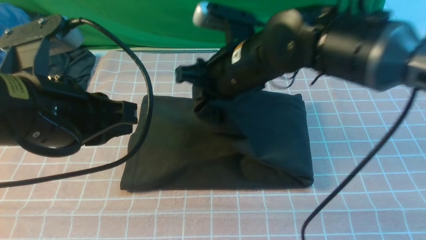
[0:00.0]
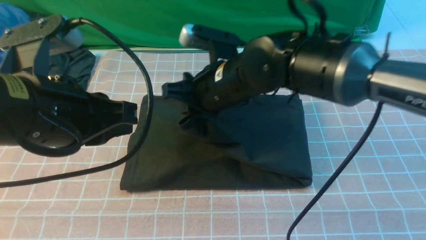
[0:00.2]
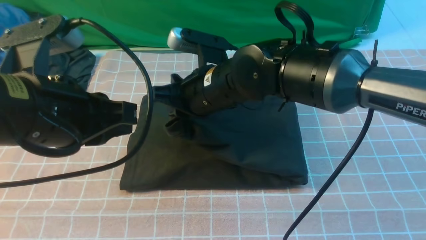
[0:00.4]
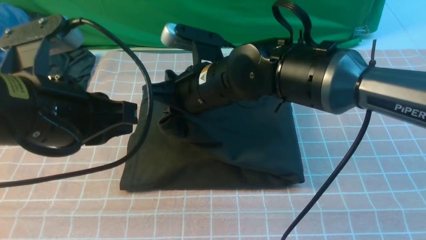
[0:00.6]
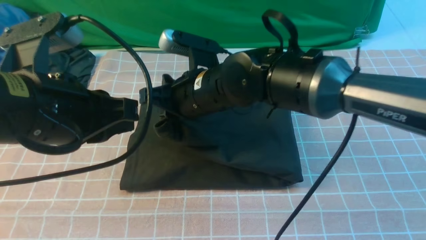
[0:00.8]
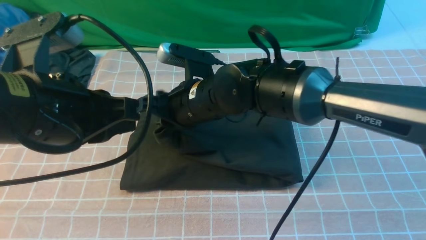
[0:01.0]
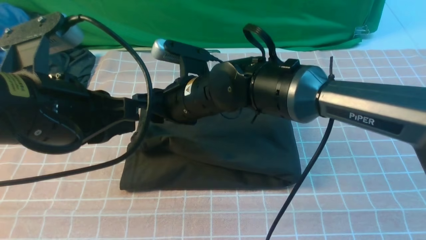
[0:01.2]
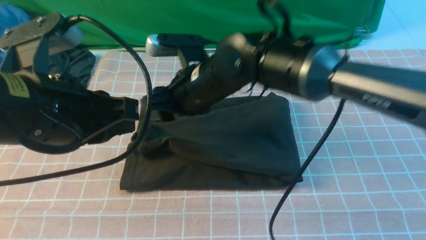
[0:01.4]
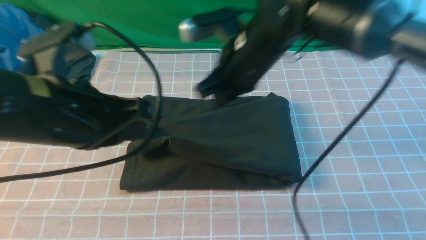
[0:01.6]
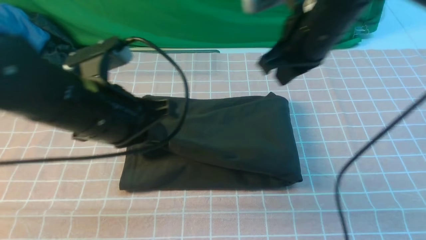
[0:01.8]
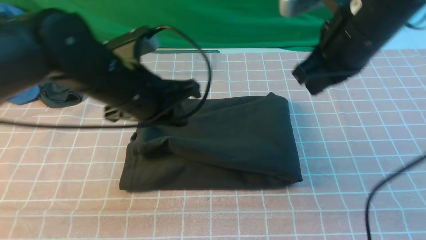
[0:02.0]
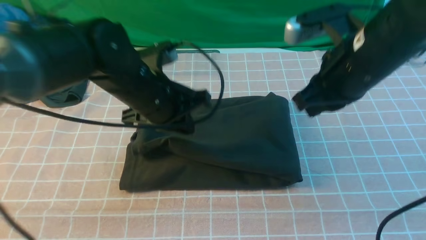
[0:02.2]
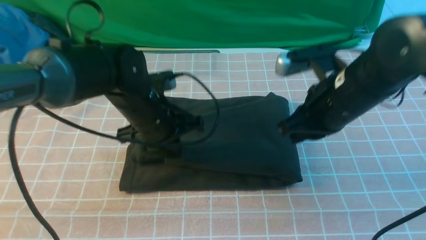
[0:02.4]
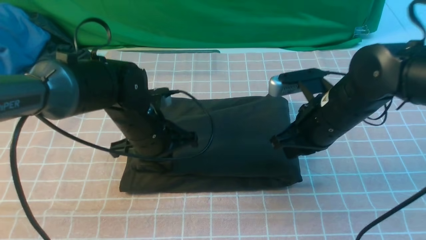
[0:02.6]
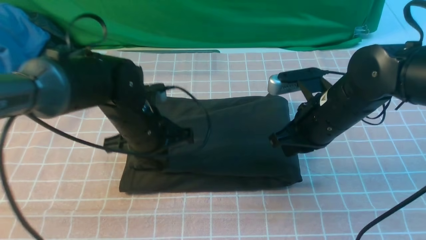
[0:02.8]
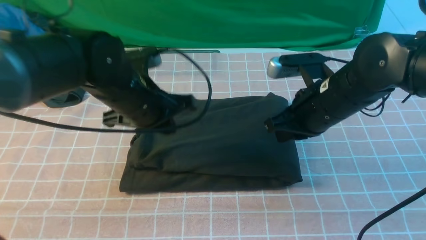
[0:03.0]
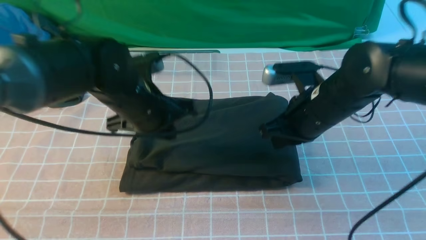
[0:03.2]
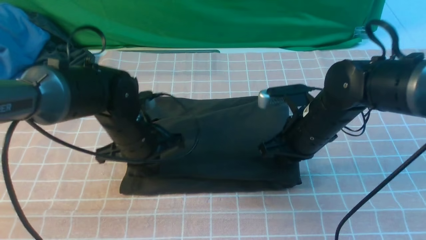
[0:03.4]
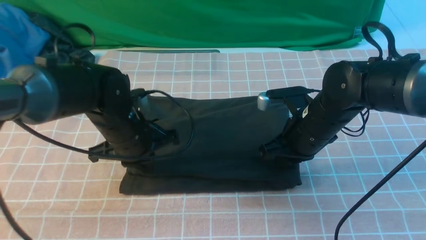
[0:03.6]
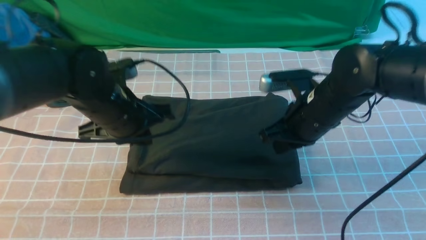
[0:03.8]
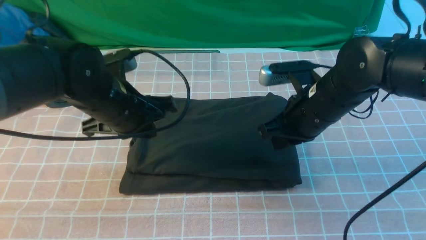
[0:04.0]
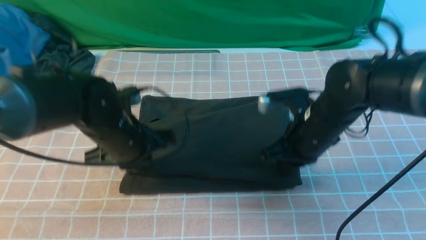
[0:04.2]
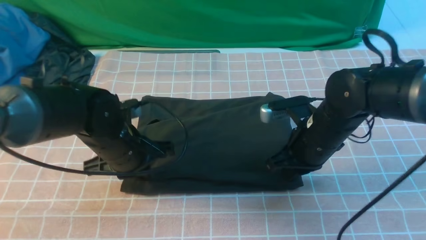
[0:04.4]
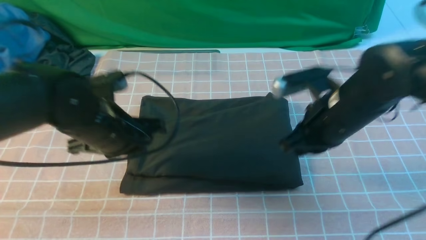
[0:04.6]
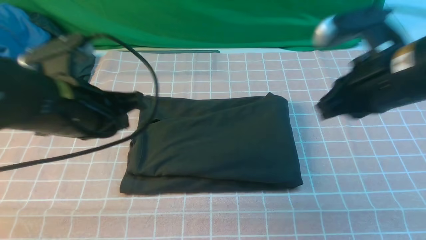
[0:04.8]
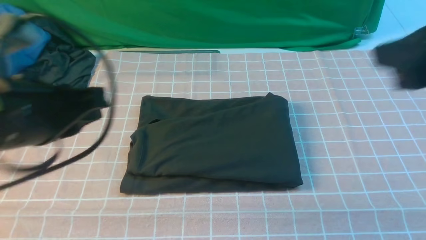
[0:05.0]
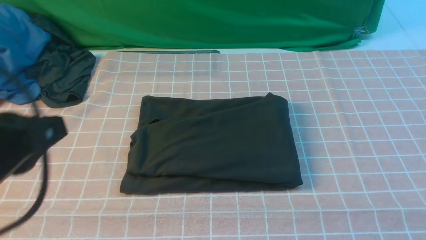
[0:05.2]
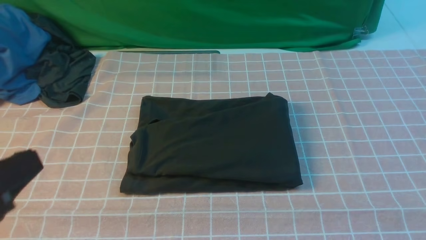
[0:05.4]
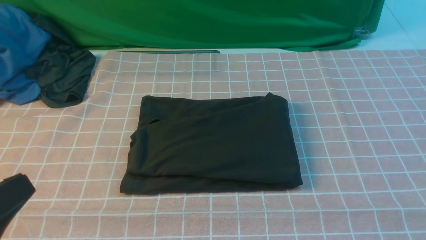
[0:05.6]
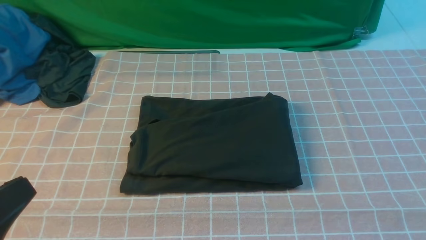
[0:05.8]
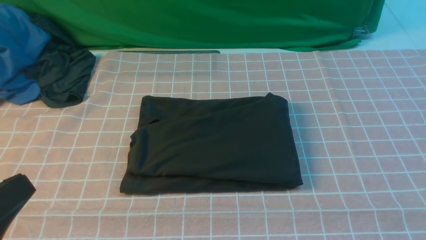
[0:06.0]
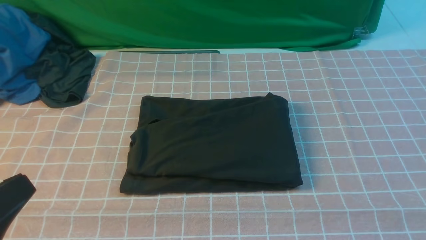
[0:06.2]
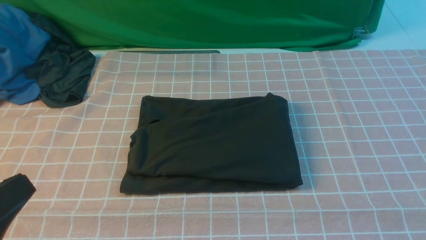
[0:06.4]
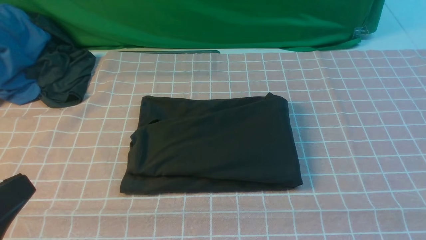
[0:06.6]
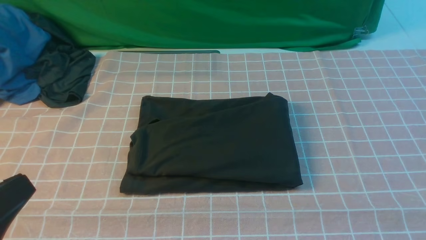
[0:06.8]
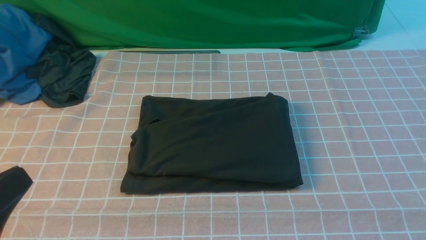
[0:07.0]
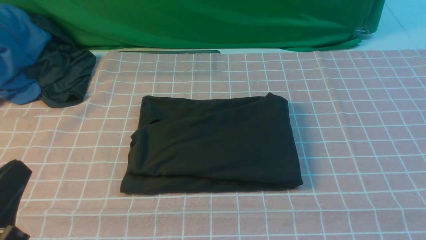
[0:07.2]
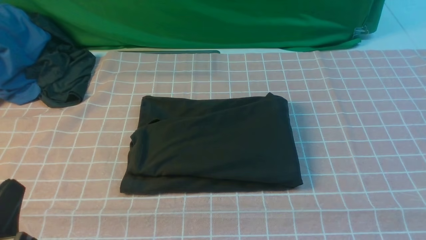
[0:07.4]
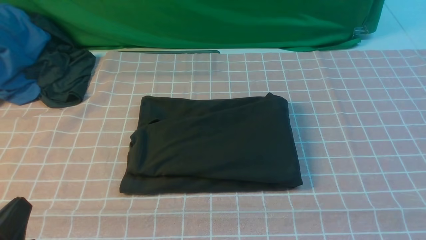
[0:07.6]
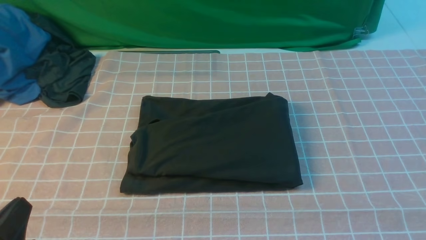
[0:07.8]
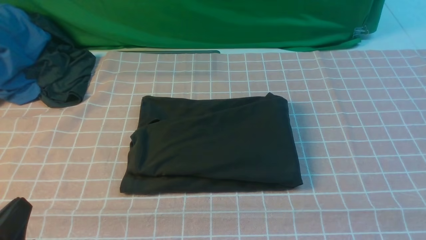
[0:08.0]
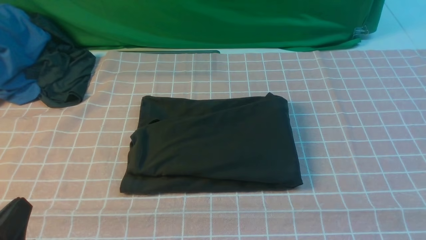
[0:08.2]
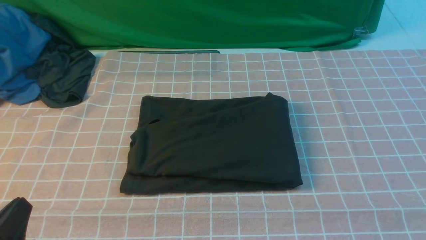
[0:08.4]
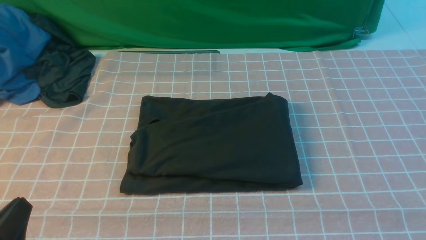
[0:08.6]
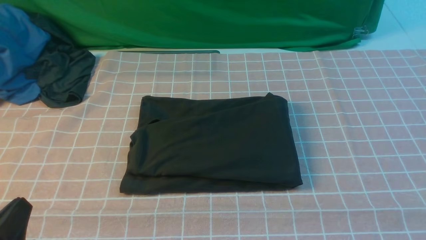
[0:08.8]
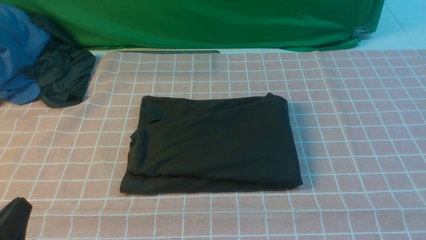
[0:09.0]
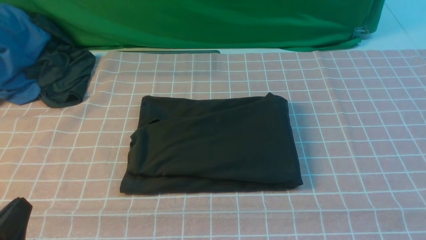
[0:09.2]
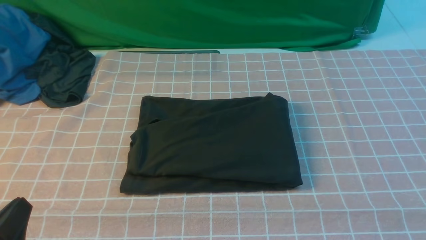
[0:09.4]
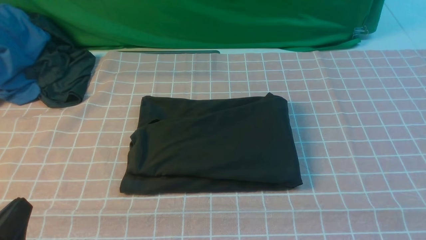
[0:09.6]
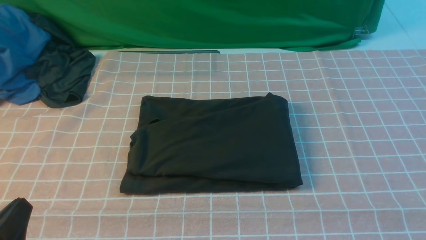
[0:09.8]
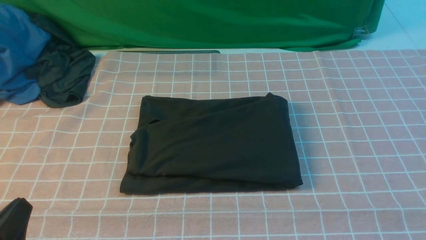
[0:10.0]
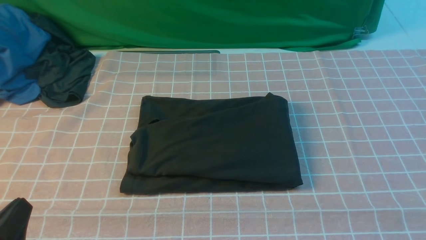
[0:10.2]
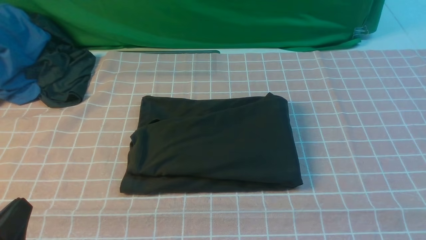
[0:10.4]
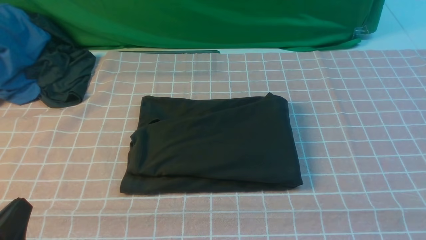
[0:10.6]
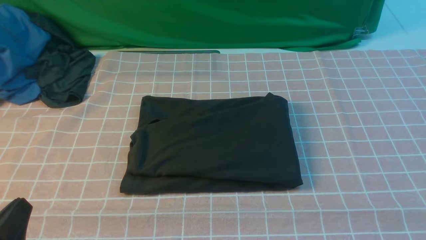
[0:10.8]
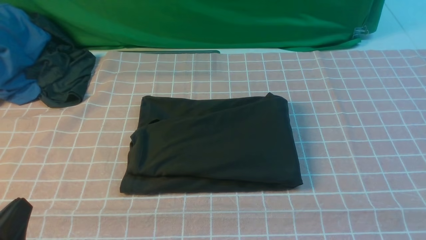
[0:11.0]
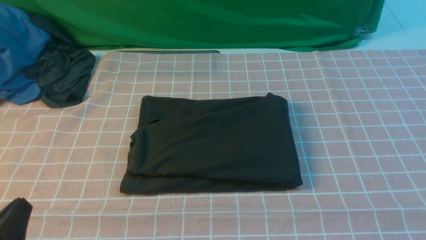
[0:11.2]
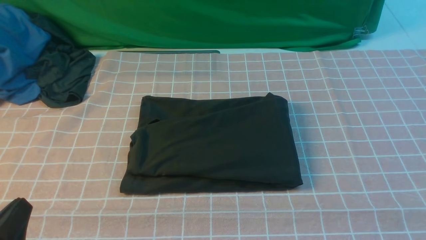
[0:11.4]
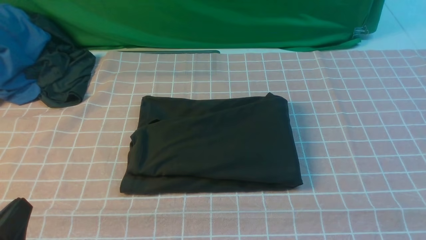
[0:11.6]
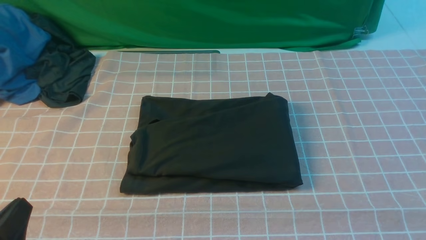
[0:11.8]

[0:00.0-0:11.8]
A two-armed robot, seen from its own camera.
0:00.0 to 0:01.4: The right gripper opens.
0:01.4 to 0:03.0: The left gripper travels forward and downward by approximately 15 cm. The right gripper shifts about 15 cm to the right, and closes up.
0:03.0 to 0:04.4: The left gripper moves approximately 5 cm.
0:04.4 to 0:06.0: The left gripper heads backward, covering about 25 cm. The right gripper moves backward, upward and to the right, approximately 40 cm.
0:06.0 to 0:07.4: The left gripper shifts about 10 cm downward.
0:07.4 to 0:08.8: There are only small adjustments of the grippers.
0:10.4 to 0:11.8: Both grippers stay put.
